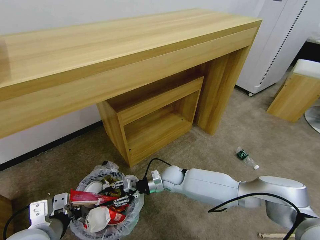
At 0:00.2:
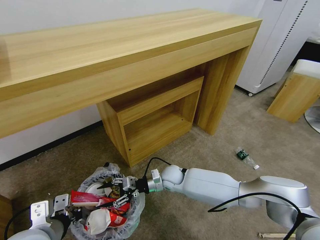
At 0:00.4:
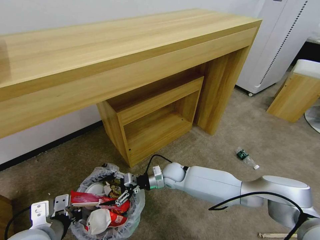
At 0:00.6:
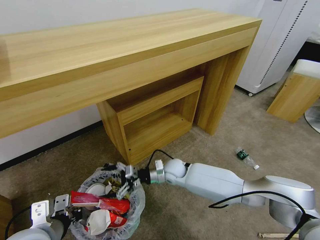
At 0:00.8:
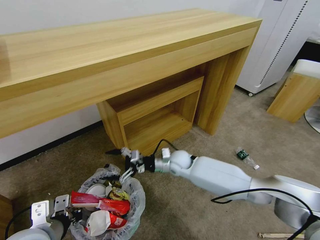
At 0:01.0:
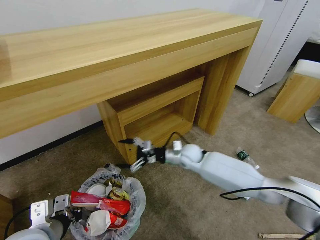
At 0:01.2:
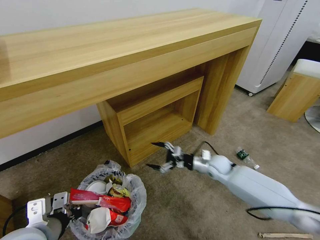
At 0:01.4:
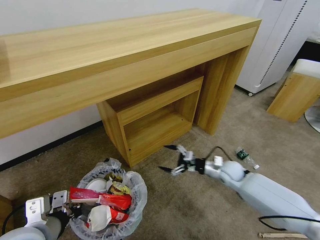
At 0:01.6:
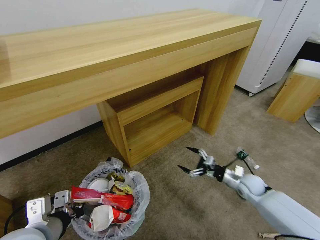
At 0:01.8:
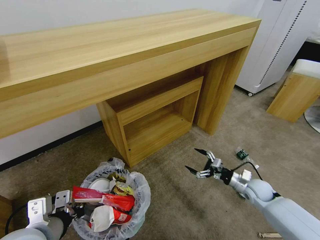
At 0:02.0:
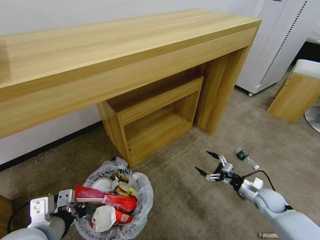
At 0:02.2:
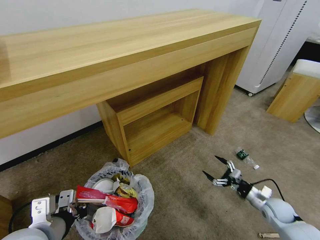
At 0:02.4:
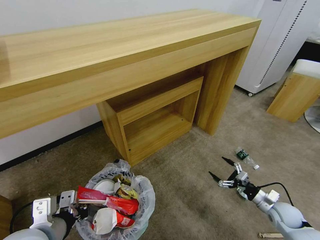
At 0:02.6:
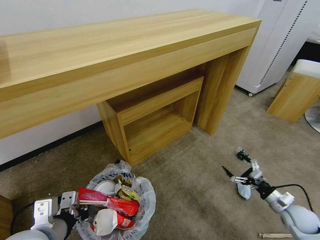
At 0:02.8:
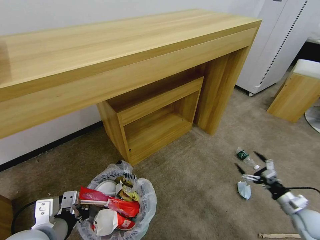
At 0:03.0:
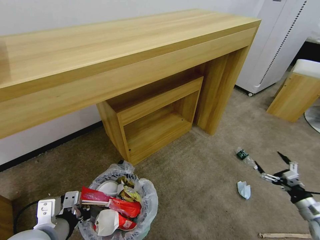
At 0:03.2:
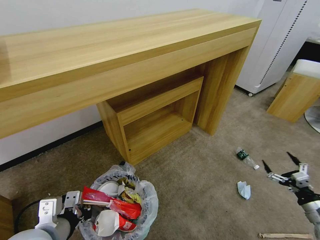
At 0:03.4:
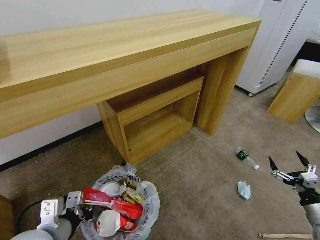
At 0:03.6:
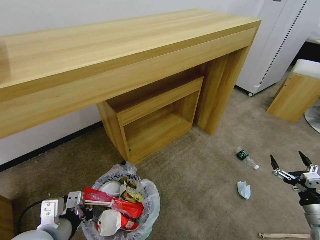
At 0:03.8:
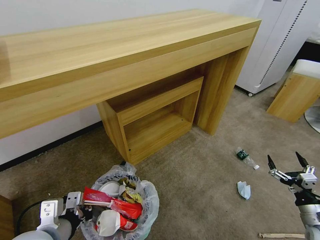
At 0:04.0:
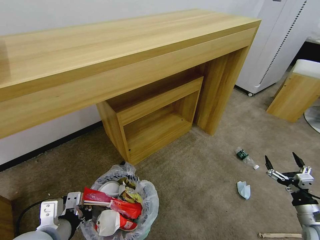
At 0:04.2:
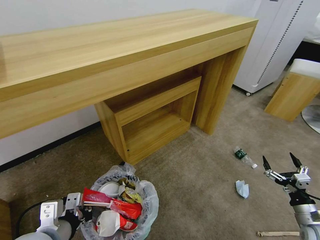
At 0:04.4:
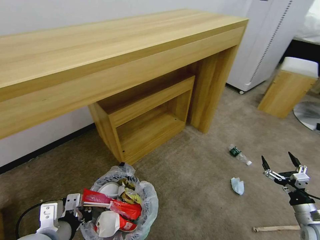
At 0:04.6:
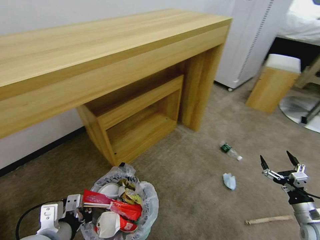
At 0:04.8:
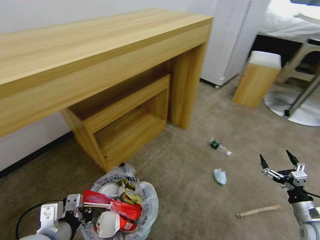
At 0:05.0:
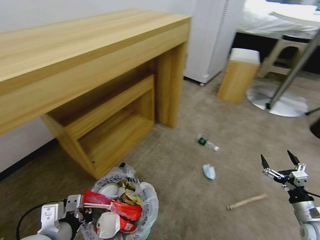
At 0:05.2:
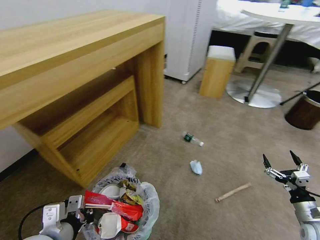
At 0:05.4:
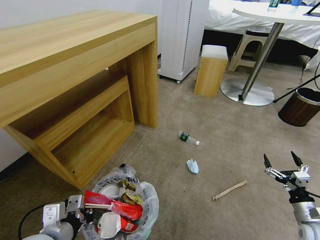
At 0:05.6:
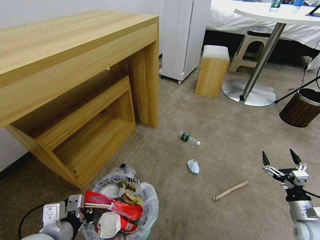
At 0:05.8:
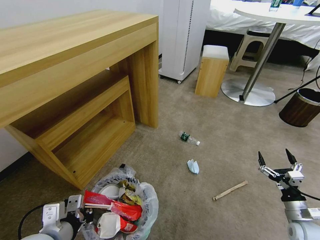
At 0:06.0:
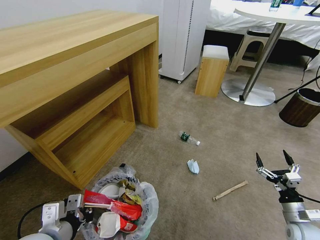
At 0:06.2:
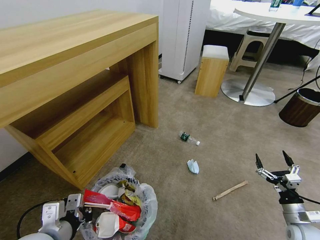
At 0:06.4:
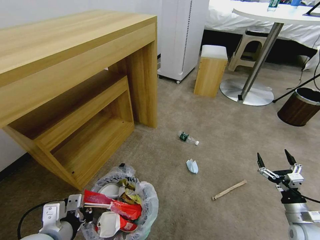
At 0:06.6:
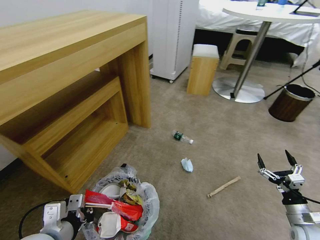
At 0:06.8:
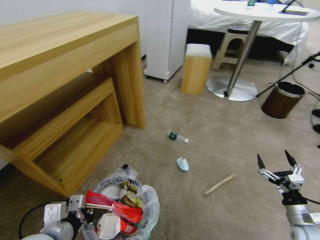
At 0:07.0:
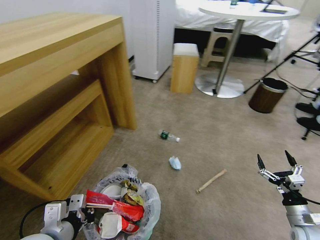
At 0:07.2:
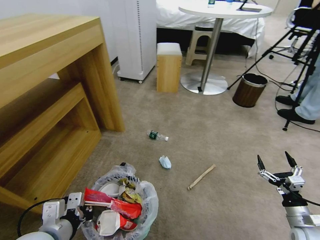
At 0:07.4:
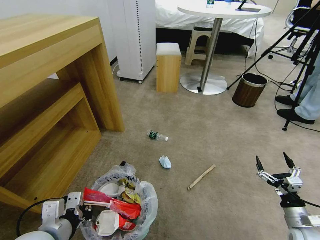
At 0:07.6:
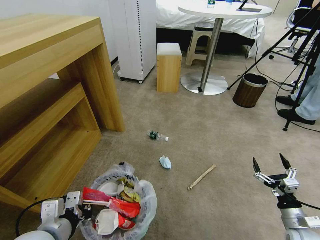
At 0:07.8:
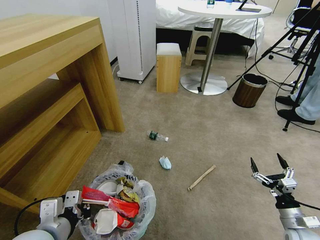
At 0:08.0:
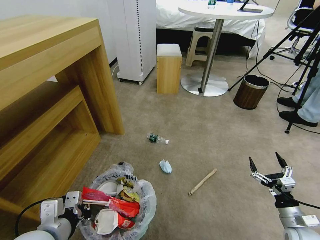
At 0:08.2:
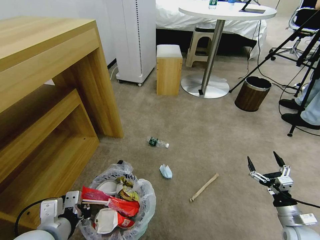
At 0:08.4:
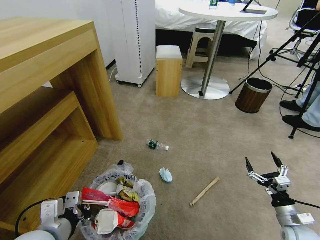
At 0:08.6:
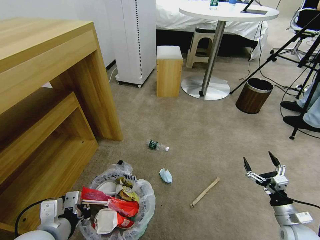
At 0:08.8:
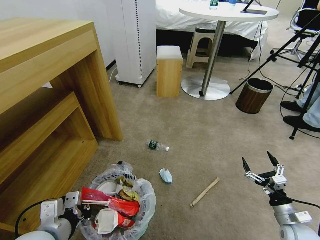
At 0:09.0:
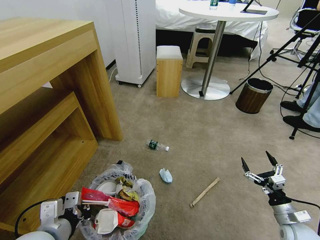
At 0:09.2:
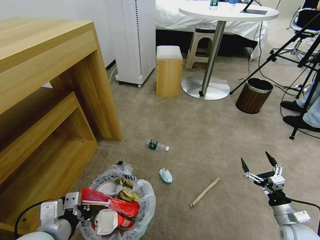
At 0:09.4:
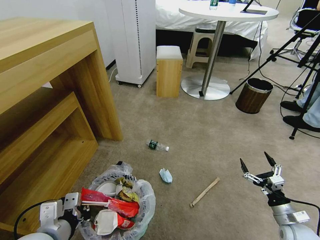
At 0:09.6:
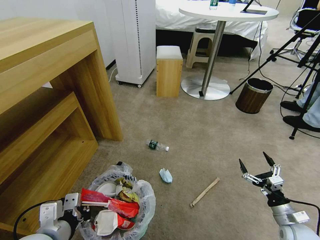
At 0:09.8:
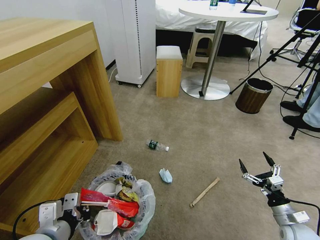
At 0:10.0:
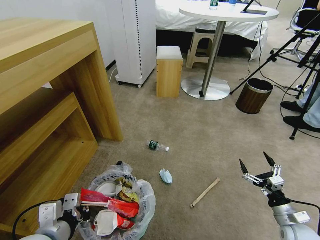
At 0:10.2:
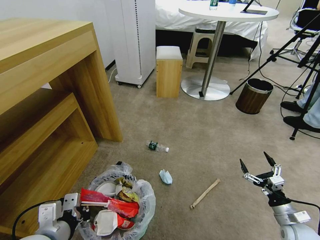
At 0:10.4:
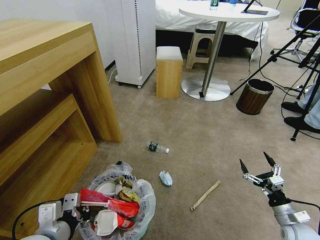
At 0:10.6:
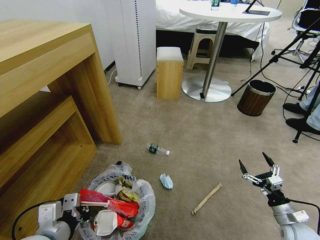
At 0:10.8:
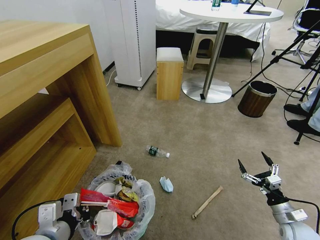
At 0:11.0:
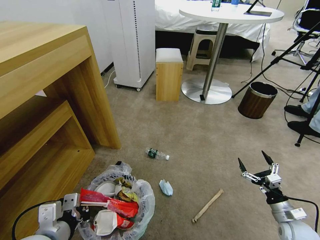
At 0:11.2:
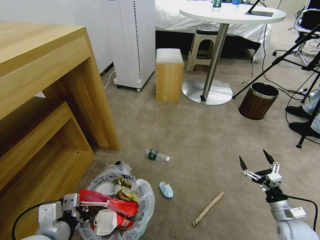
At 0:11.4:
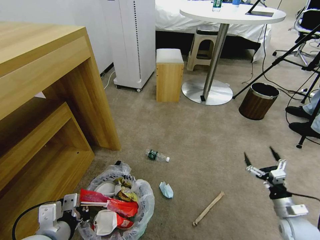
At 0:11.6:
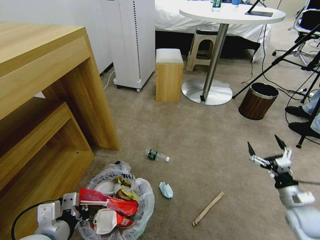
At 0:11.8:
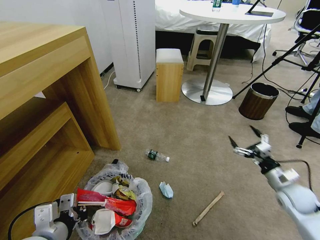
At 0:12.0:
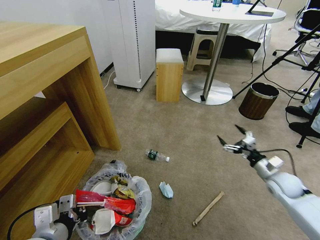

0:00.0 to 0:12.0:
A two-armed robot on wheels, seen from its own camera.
Task of the whole recording: Pick up the trash bin and place the garbage on the floor into it.
0:00.0 to 0:01.6: The right gripper heads to the right, covering some 30 cm, and opens.
0:01.6 to 0:03.0: The right gripper moves to the right and backward, some 25 cm.
0:03.0 to 0:04.4: The grippers stay close to where they were, moving slightly.
0:09.0 to 0:10.4: Neither gripper changes place.
0:10.4 to 0:12.0: The right gripper is displaced forward and upward by some 15 cm.

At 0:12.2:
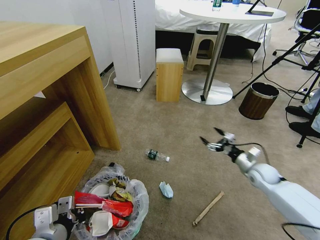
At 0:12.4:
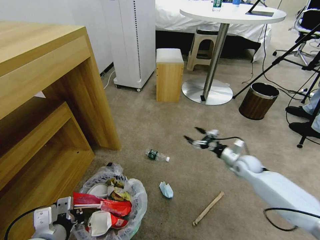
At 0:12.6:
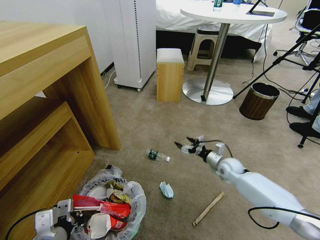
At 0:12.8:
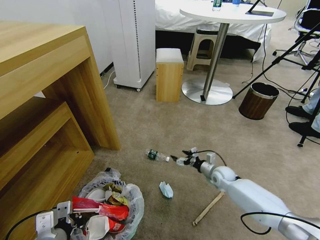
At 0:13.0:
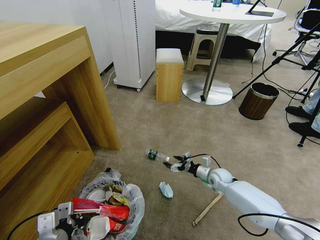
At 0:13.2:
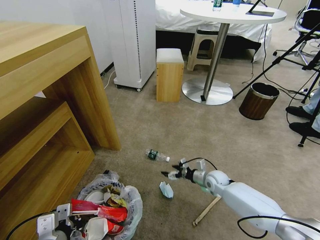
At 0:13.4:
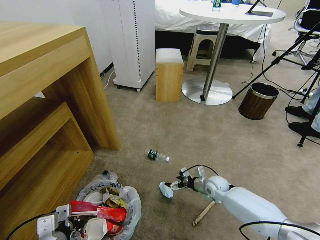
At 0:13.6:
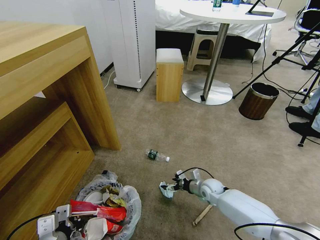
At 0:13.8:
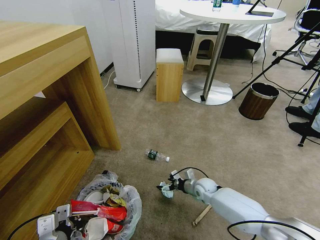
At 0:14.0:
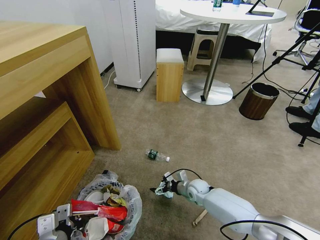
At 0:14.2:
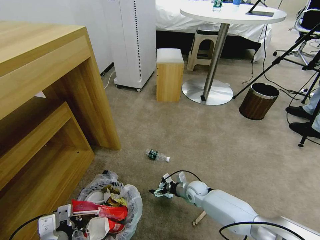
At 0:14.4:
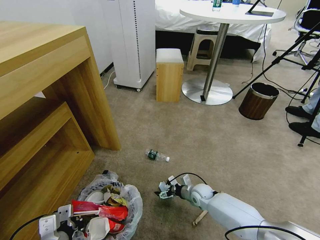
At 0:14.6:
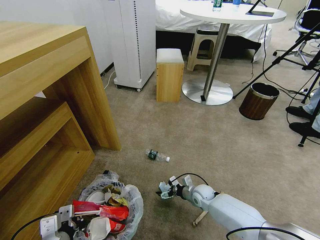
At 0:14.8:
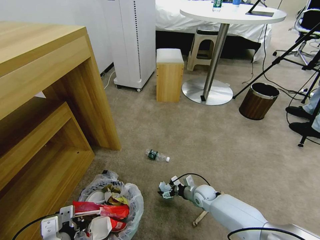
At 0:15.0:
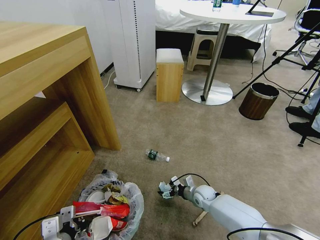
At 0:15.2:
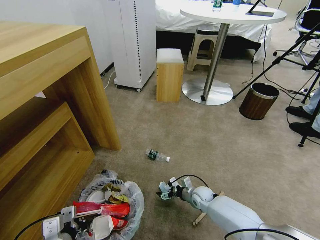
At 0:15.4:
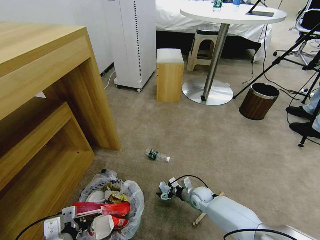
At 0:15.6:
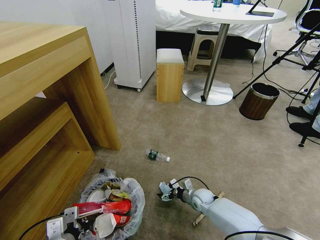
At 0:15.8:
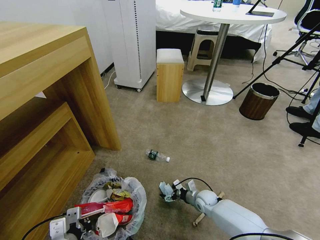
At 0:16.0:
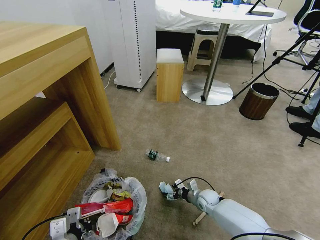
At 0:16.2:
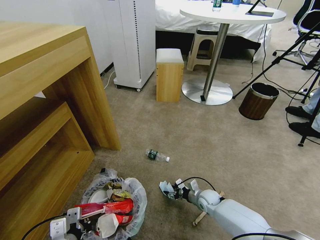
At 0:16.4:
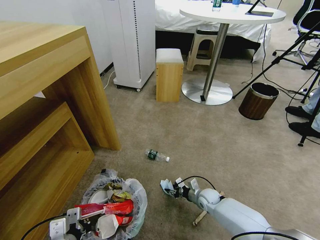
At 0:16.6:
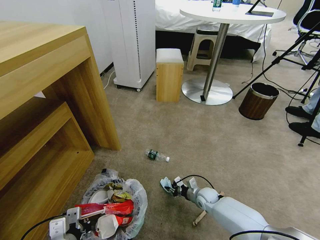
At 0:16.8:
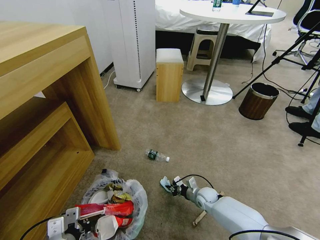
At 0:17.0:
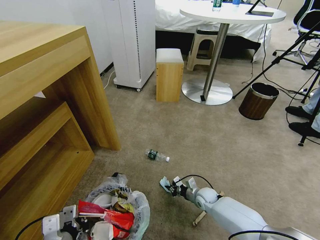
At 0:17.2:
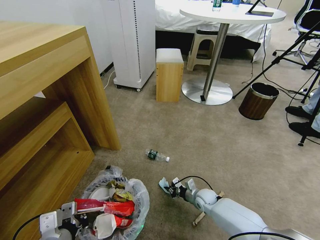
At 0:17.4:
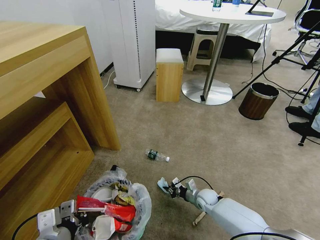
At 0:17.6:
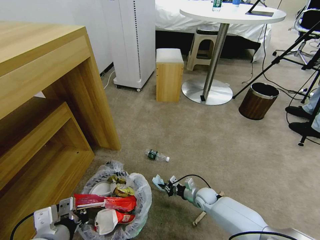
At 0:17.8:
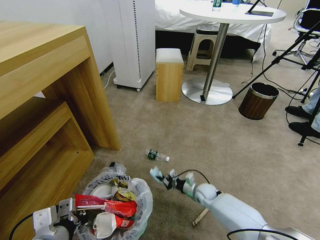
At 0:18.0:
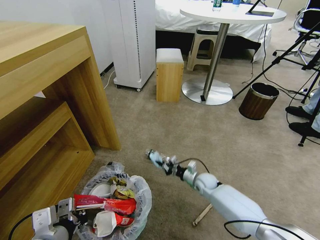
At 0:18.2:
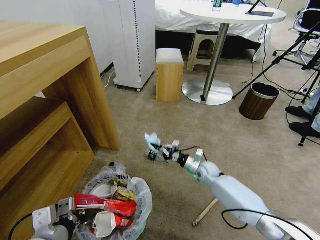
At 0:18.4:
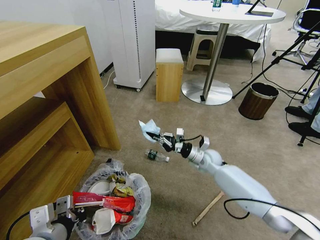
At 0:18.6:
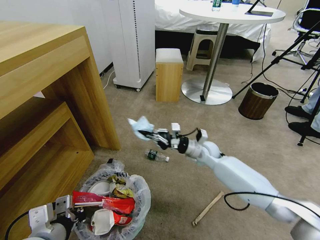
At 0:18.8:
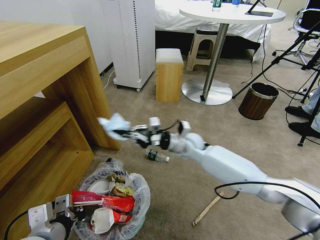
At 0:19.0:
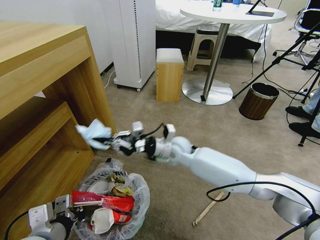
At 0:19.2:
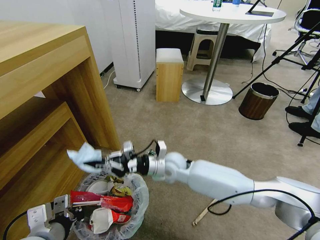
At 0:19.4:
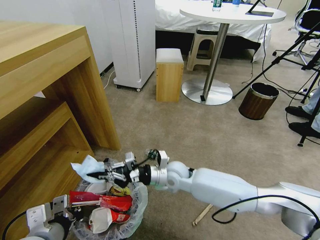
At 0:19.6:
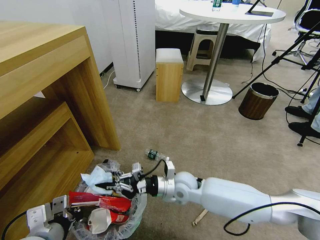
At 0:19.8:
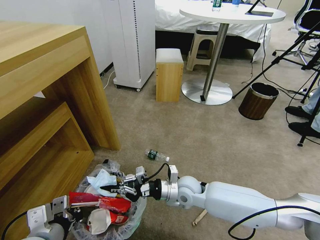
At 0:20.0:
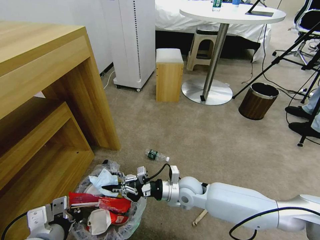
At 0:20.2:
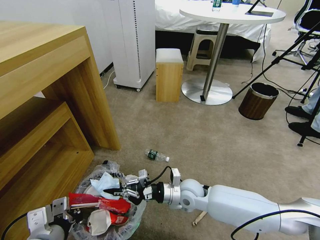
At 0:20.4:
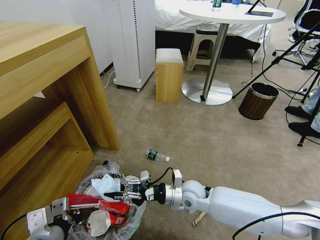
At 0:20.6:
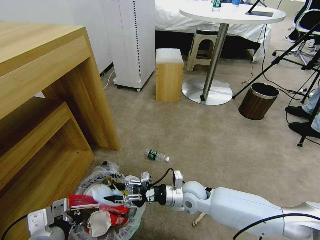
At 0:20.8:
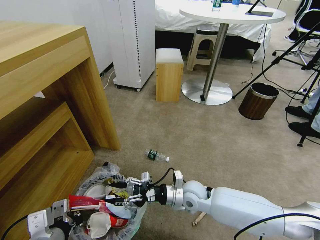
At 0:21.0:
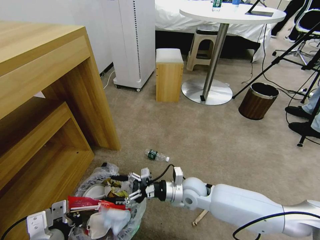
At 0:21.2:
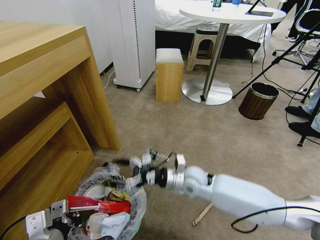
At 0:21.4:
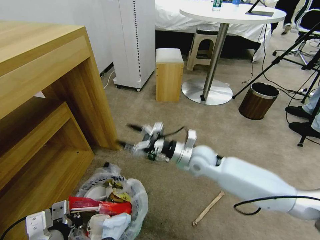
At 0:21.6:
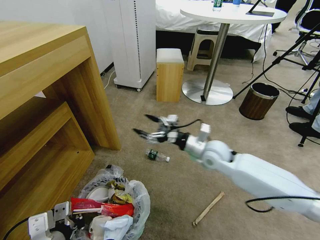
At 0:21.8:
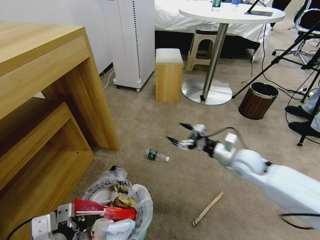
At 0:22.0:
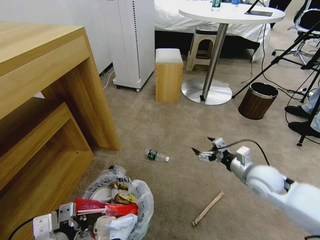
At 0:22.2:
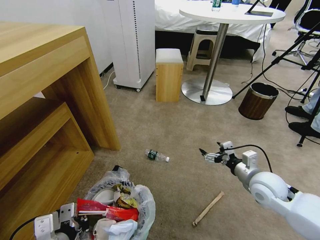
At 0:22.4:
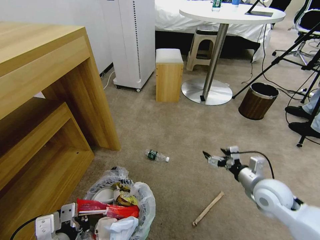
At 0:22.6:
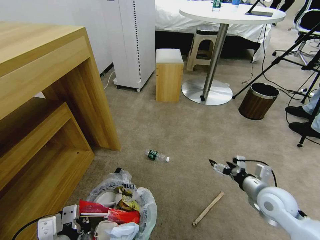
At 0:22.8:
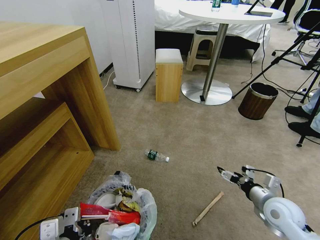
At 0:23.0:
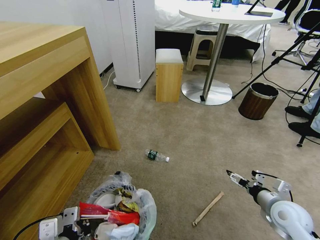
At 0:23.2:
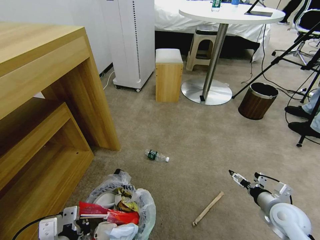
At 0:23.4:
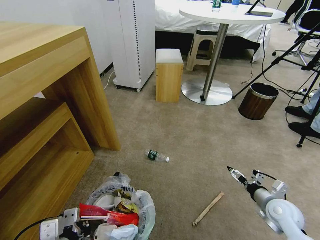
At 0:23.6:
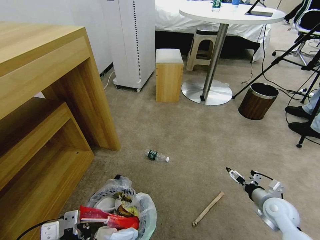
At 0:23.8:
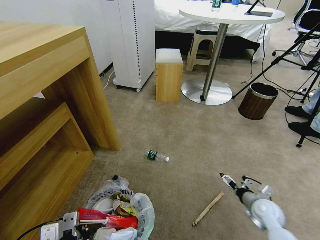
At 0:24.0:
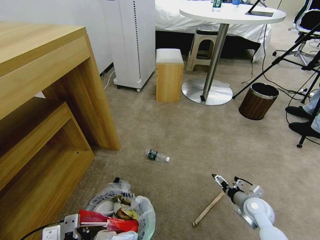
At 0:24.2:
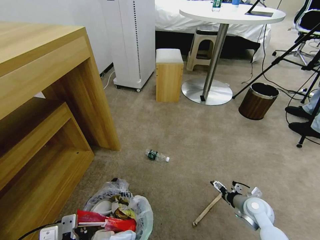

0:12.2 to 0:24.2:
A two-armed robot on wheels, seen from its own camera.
Task of the whole recording: Pick up the trash bin and place the garbage on the floor into it.
0:12.2 to 0:13.8: The right gripper heads to the left and downward, covering roughly 25 cm.
0:13.8 to 0:15.2: The grippers make only small movements.
0:15.2 to 0:16.6: The right gripper closes its fingers.
0:16.6 to 0:18.2: The left gripper shifts some 5 cm upward. Meanwhile the right gripper travels upward and forward by approximately 15 cm.
0:18.2 to 0:19.8: The right gripper is displaced to the left, backward and upward by approximately 20 cm.
0:19.8 to 0:21.2: The right gripper moves about 5 cm, and opens up.
0:21.2 to 0:22.6: The right gripper moves to the right and backward, about 25 cm.
0:22.6 to 0:24.2: The right gripper travels downward by approximately 10 cm.
